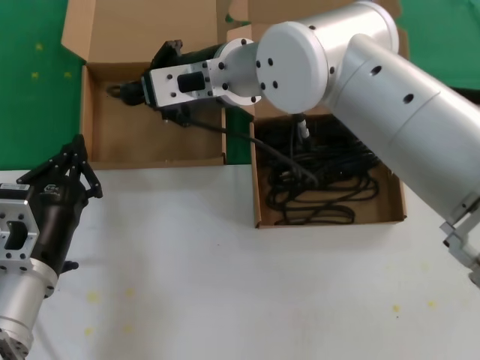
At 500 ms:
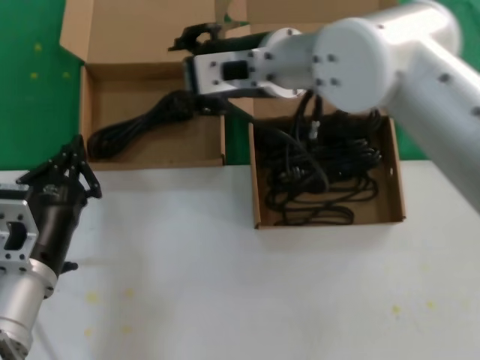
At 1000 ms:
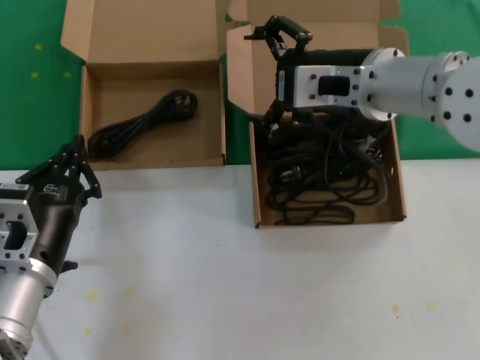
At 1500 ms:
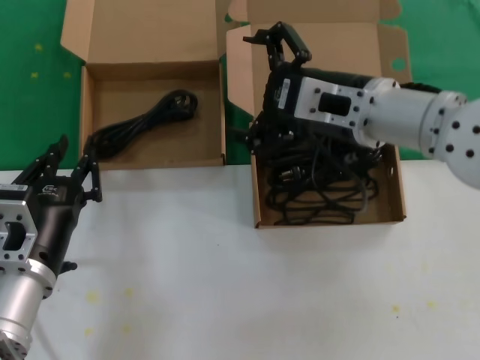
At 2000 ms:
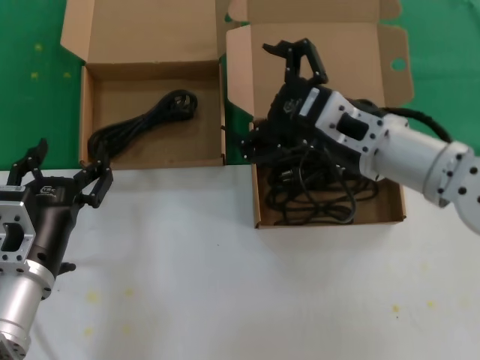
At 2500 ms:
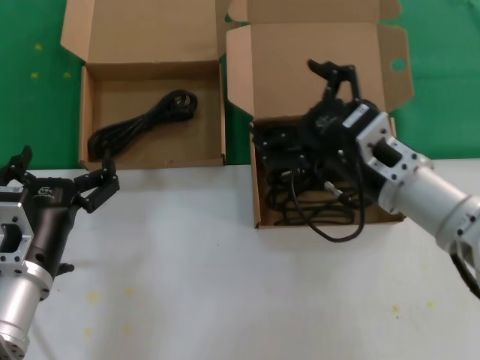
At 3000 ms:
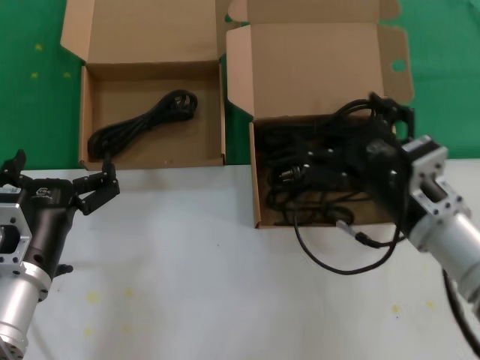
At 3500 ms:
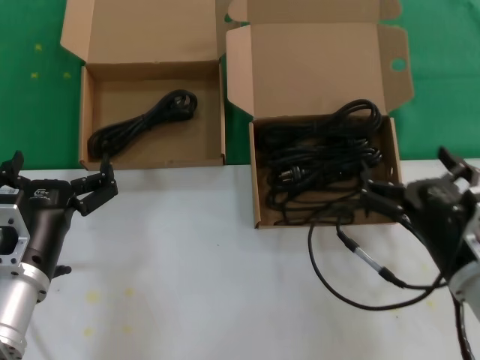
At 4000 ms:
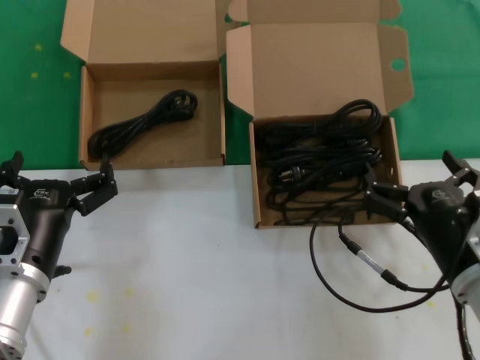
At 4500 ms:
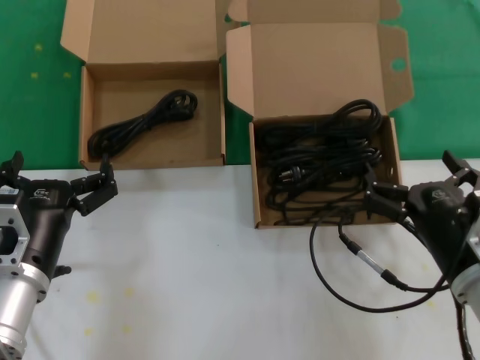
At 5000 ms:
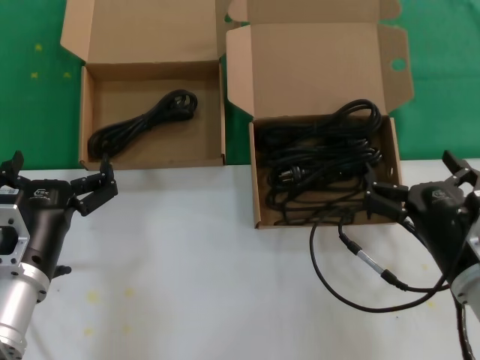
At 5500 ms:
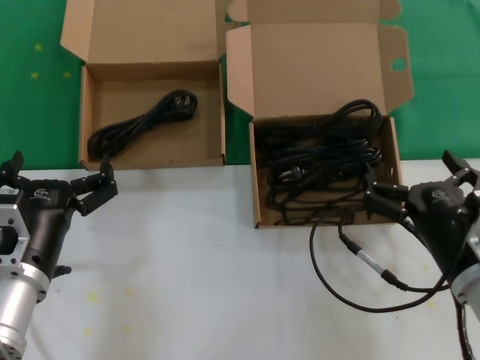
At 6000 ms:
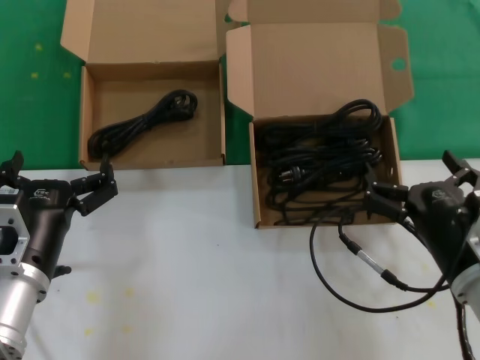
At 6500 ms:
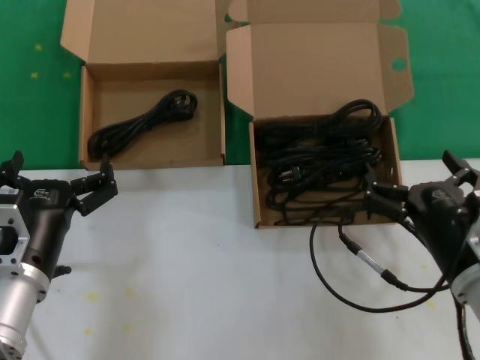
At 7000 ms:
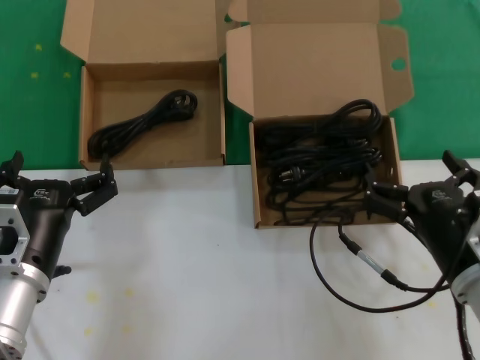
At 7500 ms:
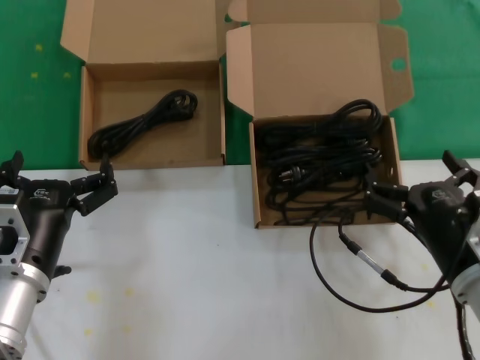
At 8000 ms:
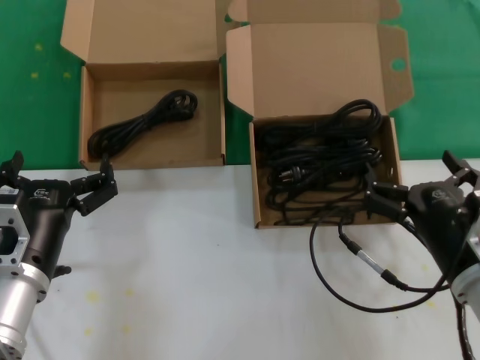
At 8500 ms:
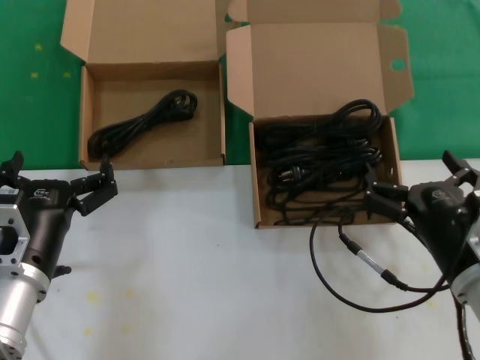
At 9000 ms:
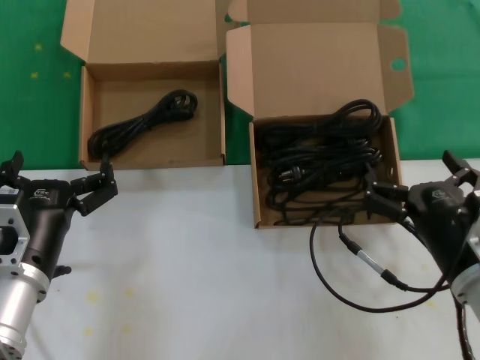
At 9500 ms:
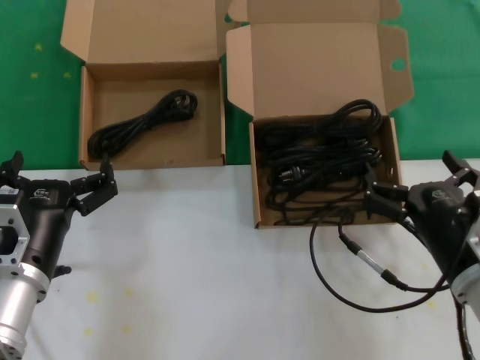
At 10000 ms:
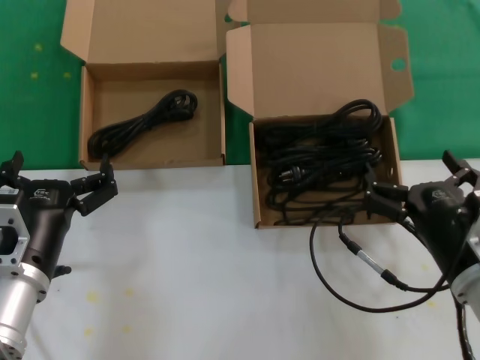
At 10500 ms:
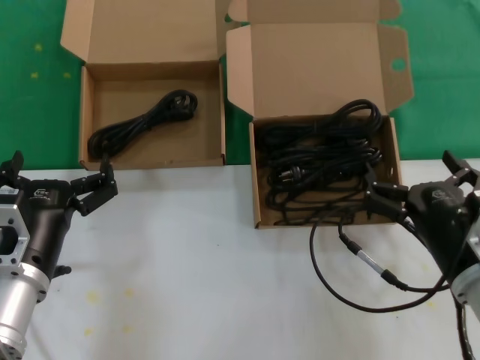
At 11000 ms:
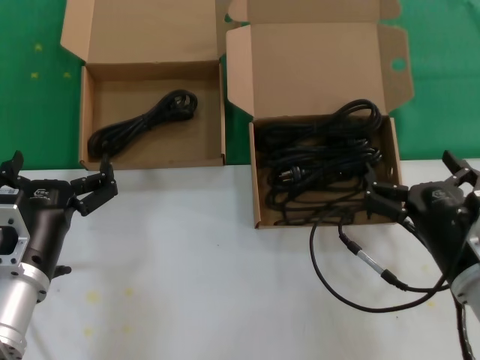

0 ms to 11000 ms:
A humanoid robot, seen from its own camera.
Task of the whole recording: take the parts from the box containing them and put them into an empty box.
0 ms to 2000 ms: The right hand heads to the right, backward and downward, covering approximately 20 cm.
2000 ms to 3500 ms: The right hand shifts roughly 20 cm downward, backward and to the right.
3500 ms to 11000 ms: Both hands stay about where they are.

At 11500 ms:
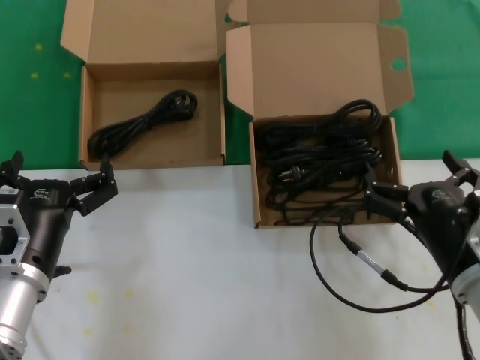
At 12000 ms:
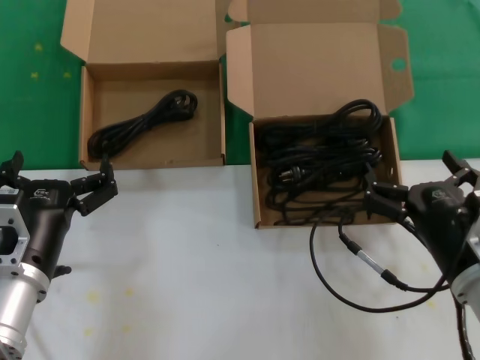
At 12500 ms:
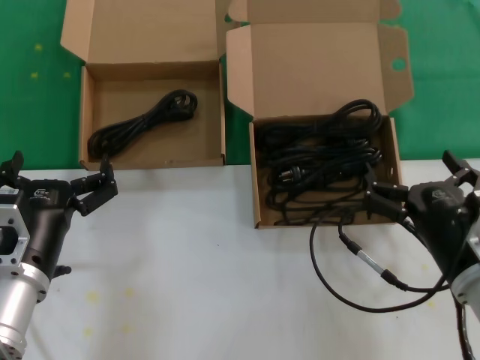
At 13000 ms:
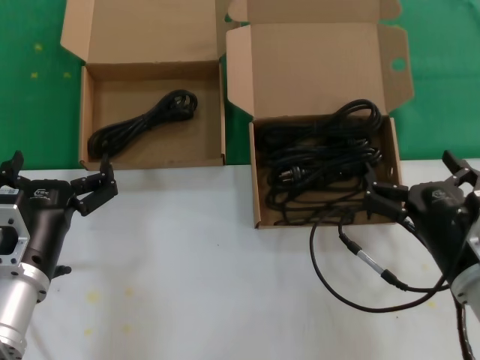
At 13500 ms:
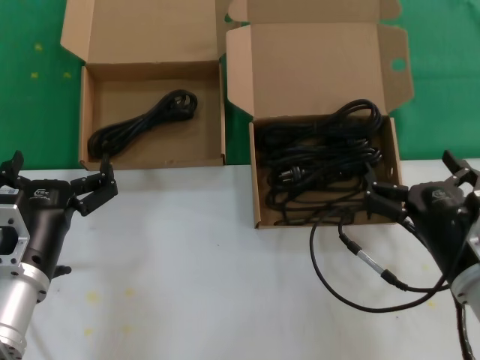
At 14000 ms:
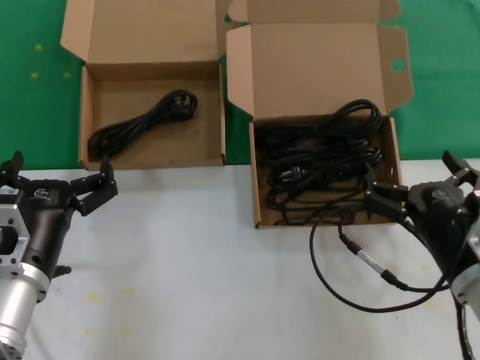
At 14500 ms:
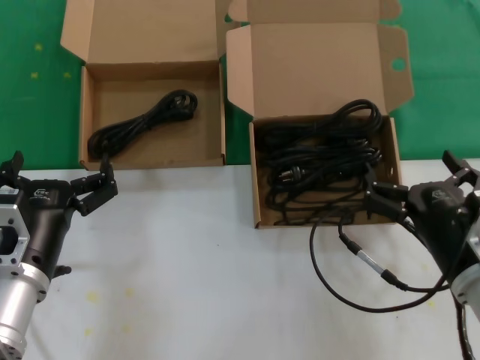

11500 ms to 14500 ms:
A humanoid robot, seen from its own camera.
Task of the whole recording: take the parts from the box containing them and put them into an empty box.
11500 ms to 14500 ms: Both hands stay about where they are.

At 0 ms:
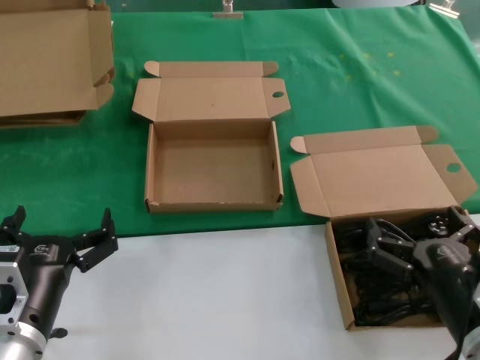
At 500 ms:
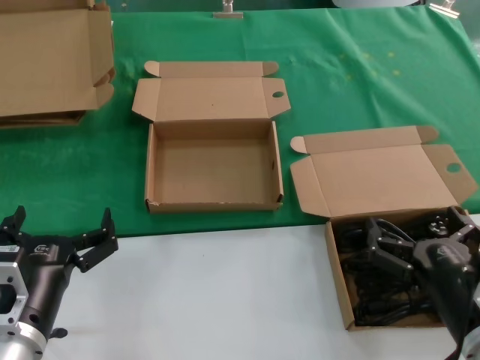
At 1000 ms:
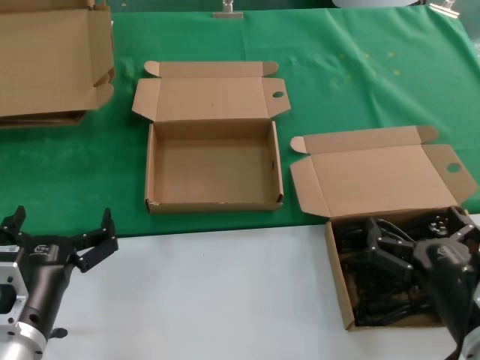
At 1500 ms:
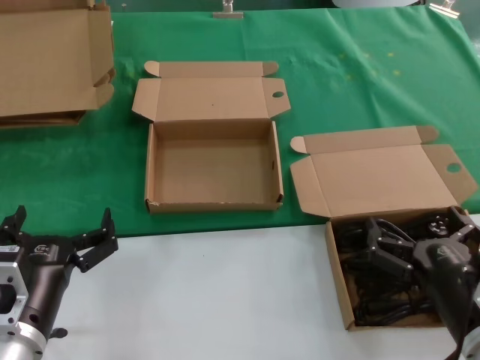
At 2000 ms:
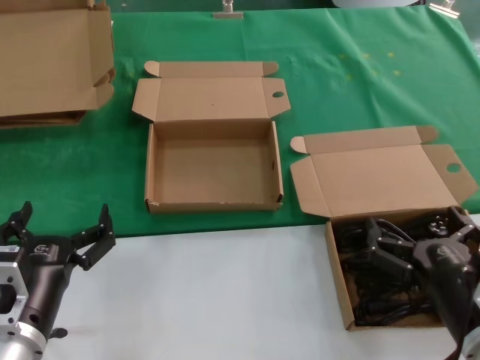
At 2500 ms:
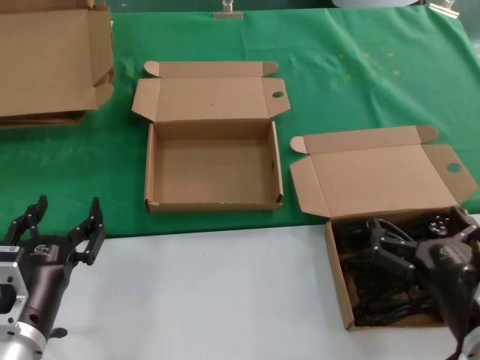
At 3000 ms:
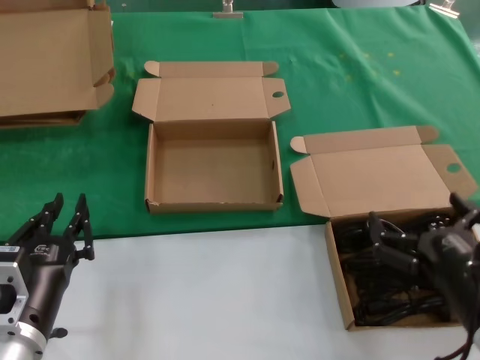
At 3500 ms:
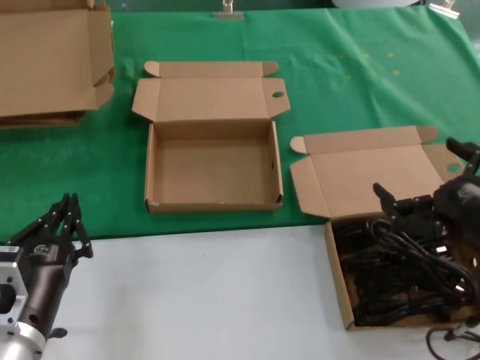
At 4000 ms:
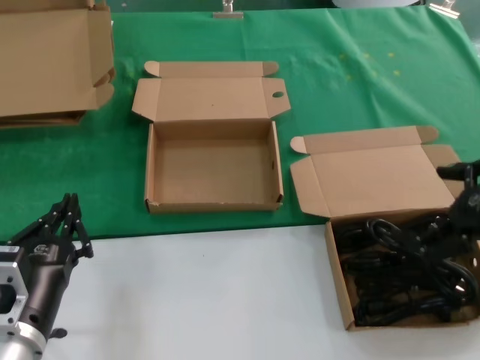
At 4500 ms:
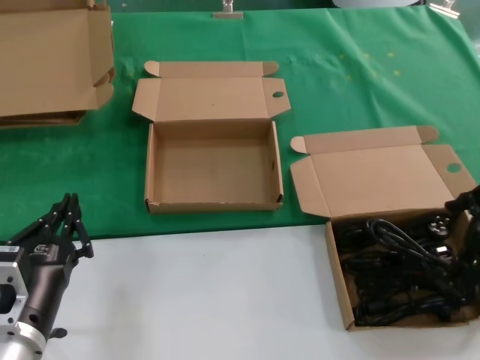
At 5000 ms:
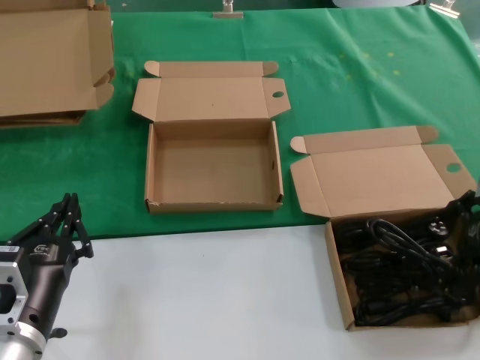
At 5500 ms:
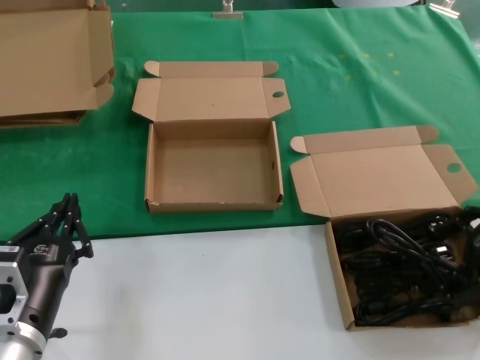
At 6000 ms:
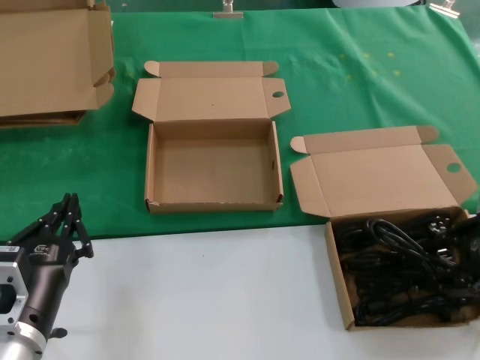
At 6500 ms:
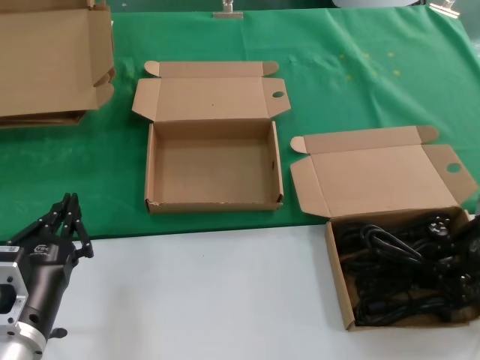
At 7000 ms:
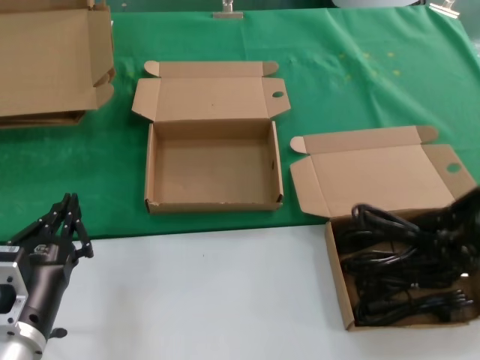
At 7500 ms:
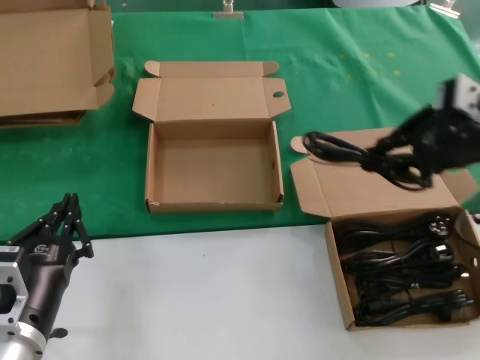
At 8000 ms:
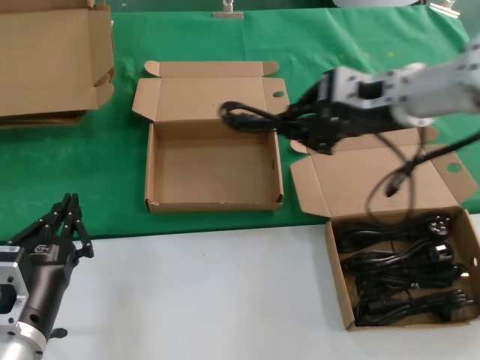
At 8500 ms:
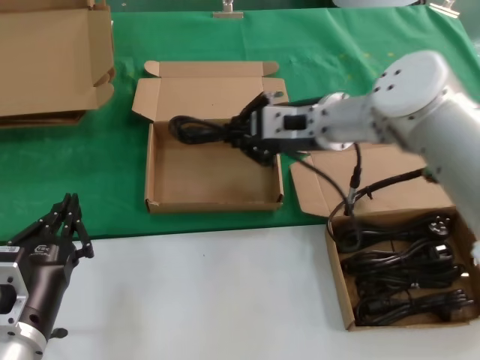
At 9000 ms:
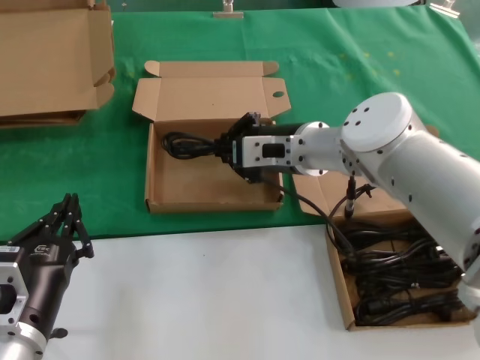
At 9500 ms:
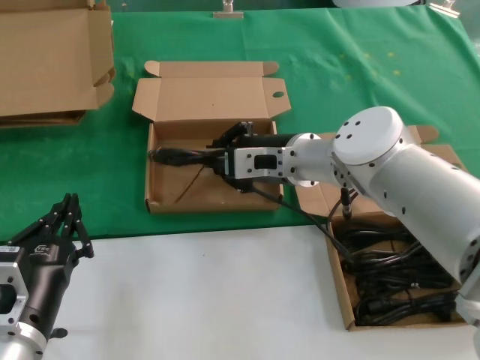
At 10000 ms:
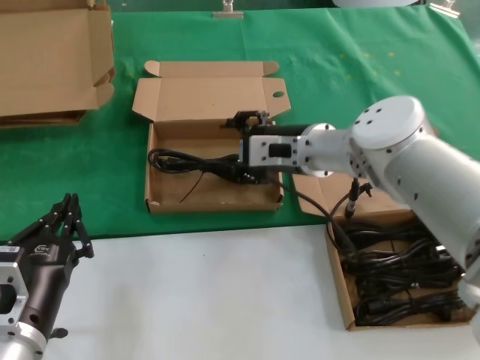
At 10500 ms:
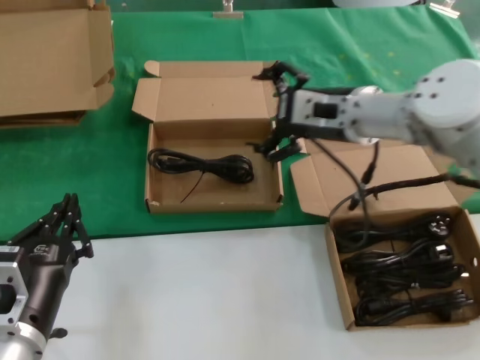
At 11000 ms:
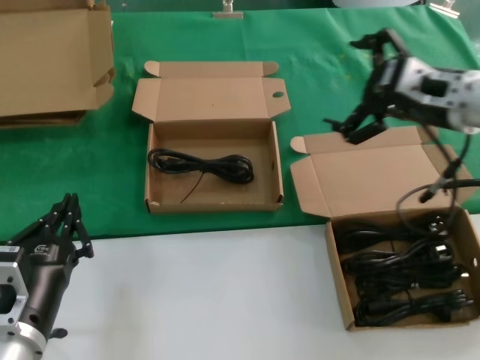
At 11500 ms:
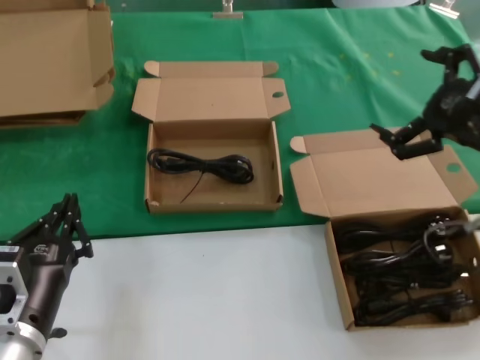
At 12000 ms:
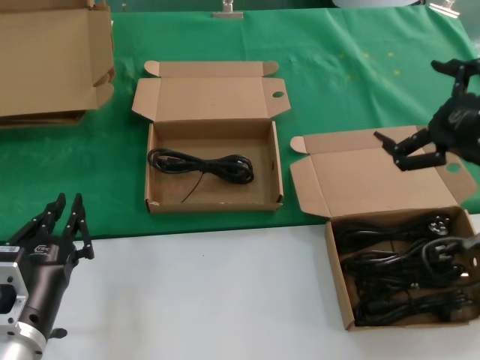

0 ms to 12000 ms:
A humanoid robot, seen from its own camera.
Task of the whole recording: take the parts from the box containing them and put them into an empty box.
Step, 0 ms to 6000 ms: Grasp the data cable.
Step, 6500 ms to 9500 ms: Place the data cable in the another box.
0 ms to 2000 ms: Both hands stay put.
2000 ms to 4000 ms: The right hand goes roughly 20 cm upward and to the right.
4000 ms to 6000 ms: The right hand is displaced forward by approximately 5 cm.
6000 ms to 8000 ms: The right hand goes some 20 cm to the left, upward and forward.
8000 ms to 10000 ms: The right hand is displaced downward and to the left by roughly 15 cm.
10000 ms to 12000 ms: The right hand heads to the right and backward, covering some 25 cm.
